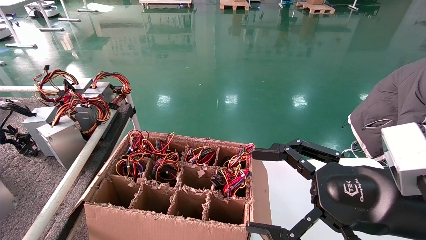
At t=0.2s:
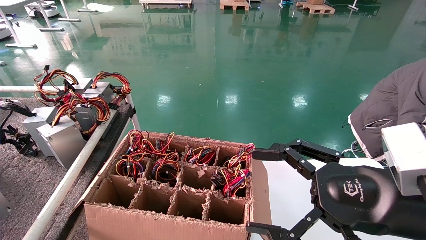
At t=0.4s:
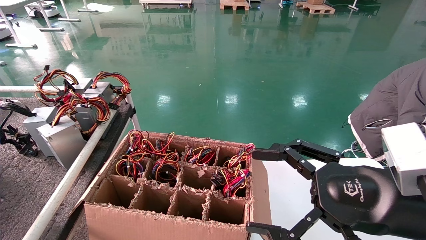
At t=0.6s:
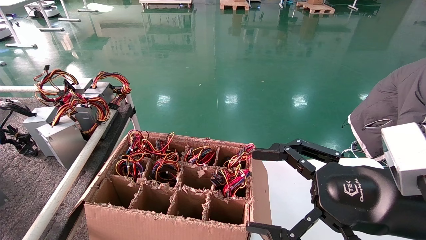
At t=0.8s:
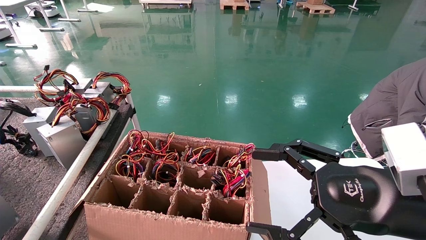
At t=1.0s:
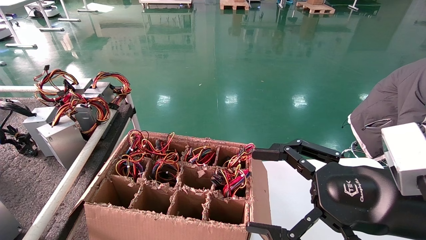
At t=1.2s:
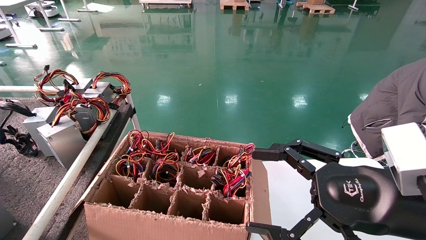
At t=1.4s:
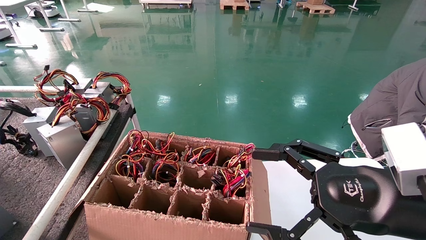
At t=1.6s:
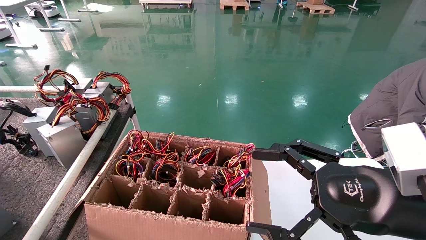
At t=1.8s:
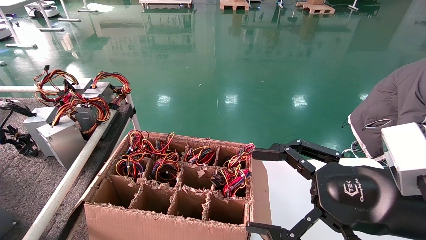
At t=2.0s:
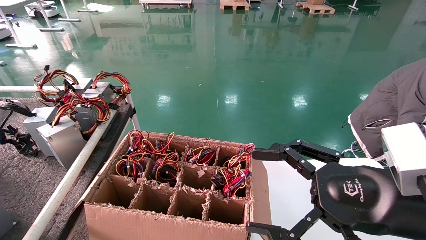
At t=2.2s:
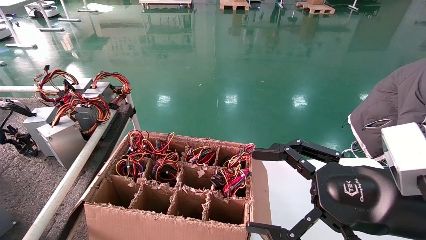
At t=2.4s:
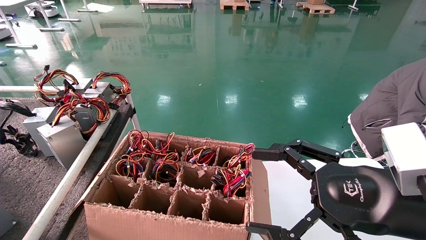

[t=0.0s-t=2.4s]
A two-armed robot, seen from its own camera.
t=0.0s to t=1.2s: The left gripper travels downward by about 5 cm.
